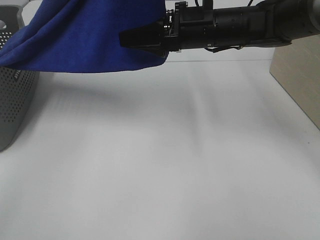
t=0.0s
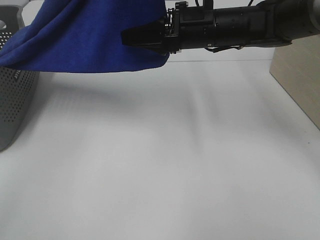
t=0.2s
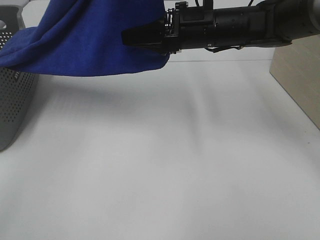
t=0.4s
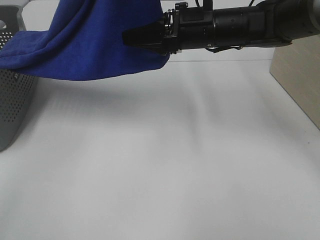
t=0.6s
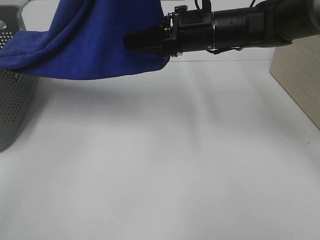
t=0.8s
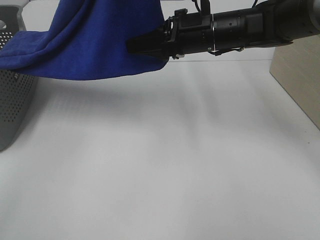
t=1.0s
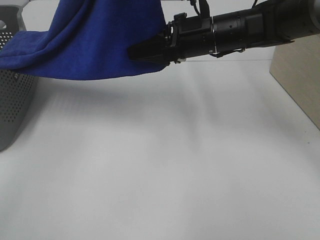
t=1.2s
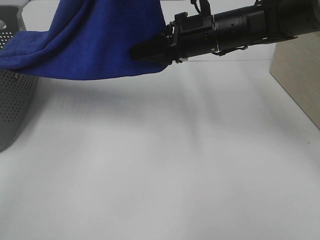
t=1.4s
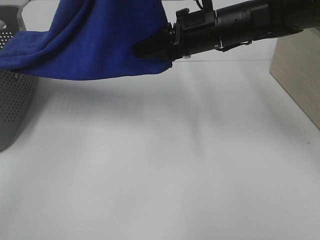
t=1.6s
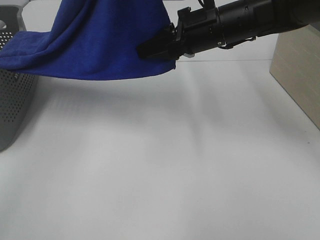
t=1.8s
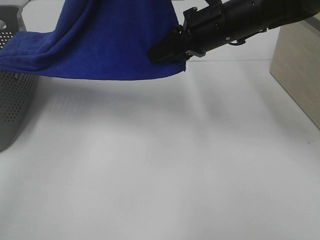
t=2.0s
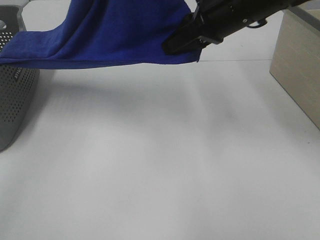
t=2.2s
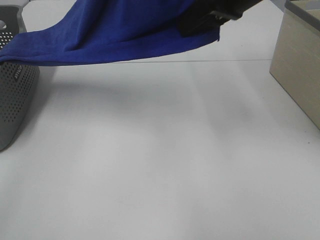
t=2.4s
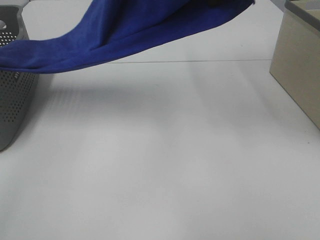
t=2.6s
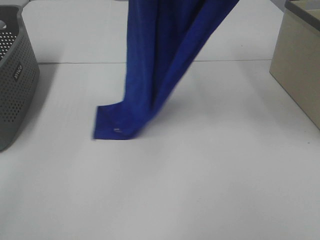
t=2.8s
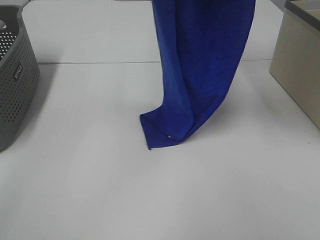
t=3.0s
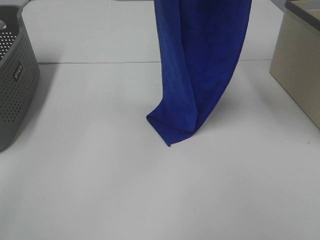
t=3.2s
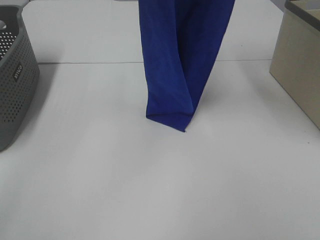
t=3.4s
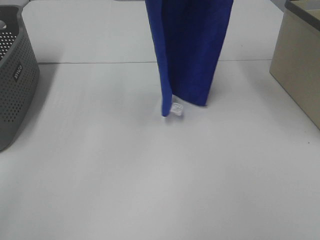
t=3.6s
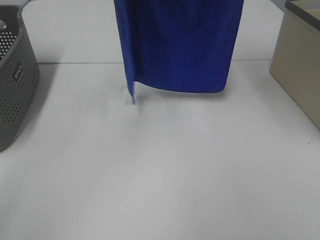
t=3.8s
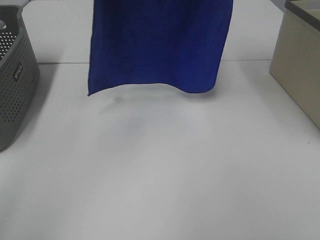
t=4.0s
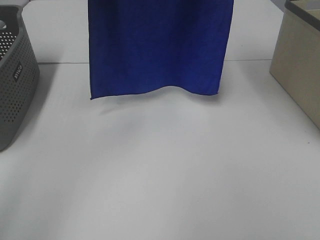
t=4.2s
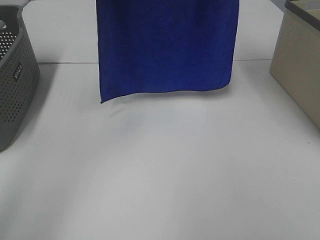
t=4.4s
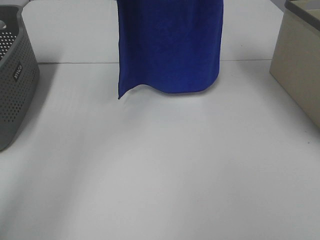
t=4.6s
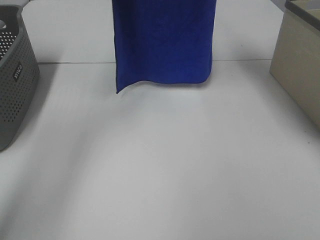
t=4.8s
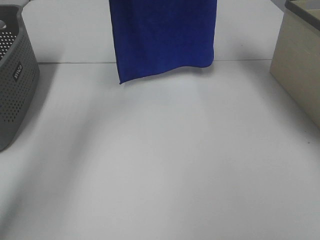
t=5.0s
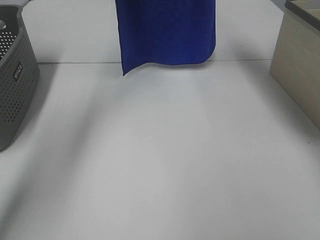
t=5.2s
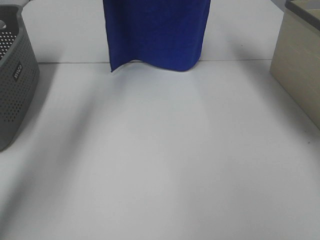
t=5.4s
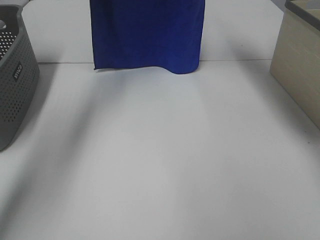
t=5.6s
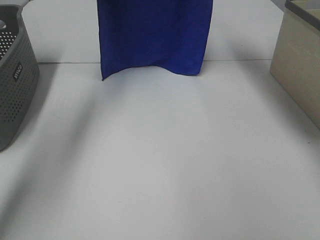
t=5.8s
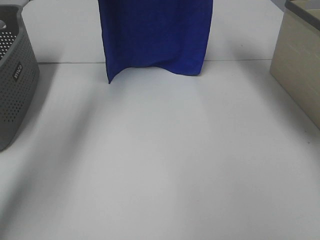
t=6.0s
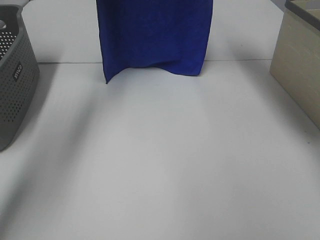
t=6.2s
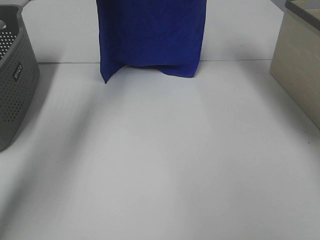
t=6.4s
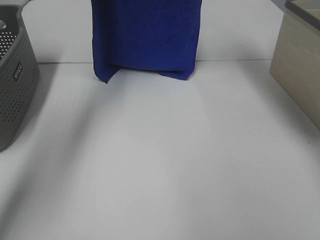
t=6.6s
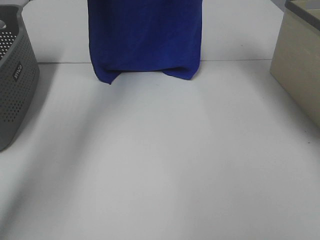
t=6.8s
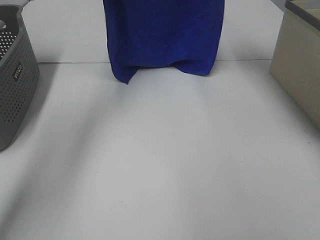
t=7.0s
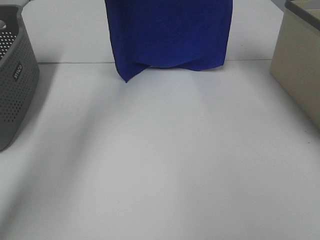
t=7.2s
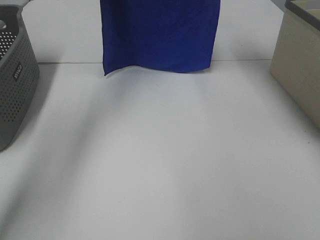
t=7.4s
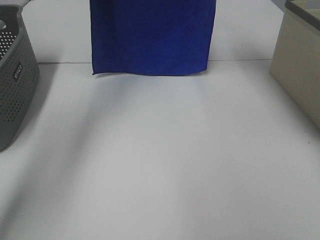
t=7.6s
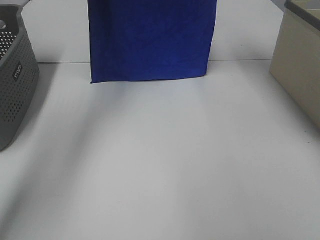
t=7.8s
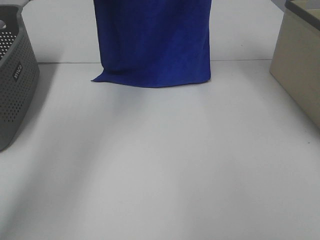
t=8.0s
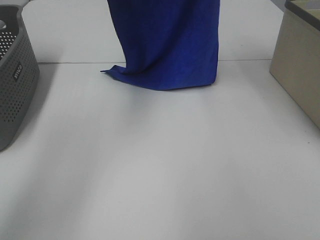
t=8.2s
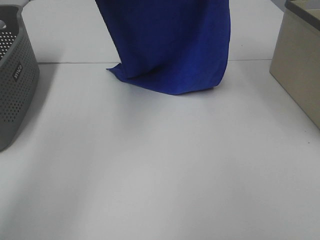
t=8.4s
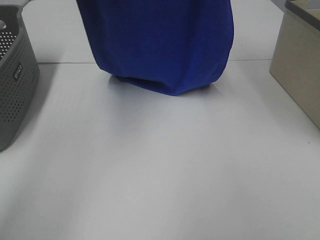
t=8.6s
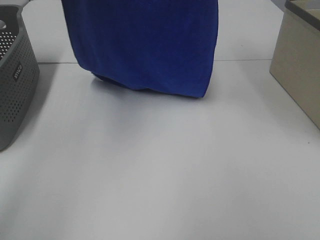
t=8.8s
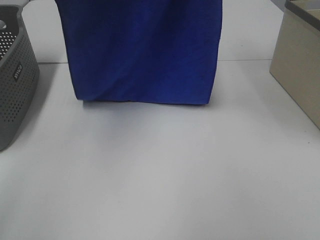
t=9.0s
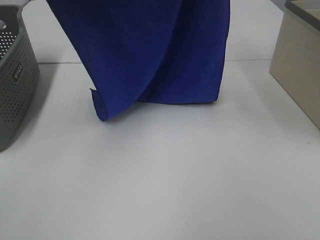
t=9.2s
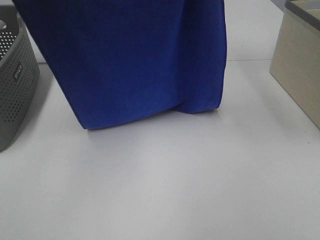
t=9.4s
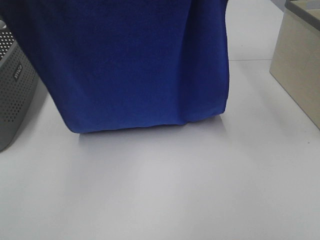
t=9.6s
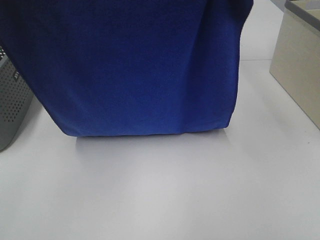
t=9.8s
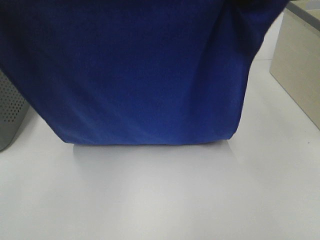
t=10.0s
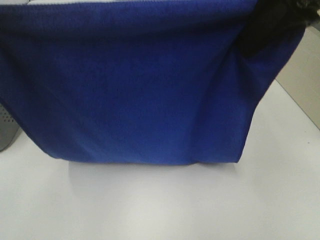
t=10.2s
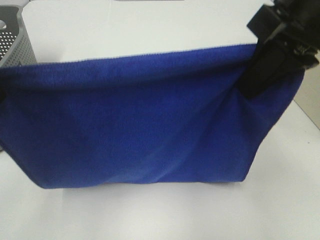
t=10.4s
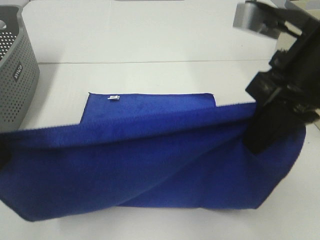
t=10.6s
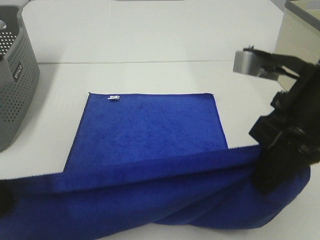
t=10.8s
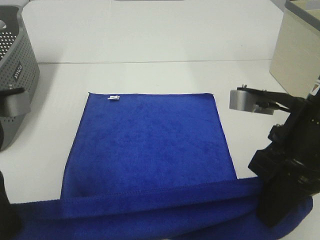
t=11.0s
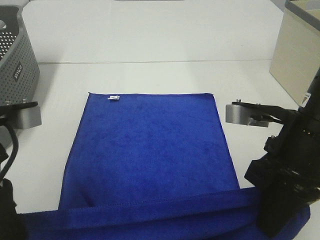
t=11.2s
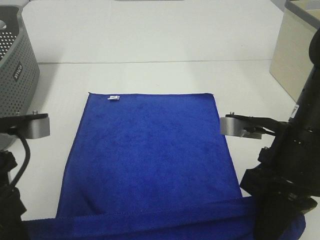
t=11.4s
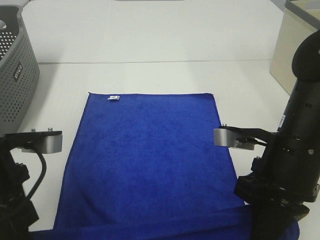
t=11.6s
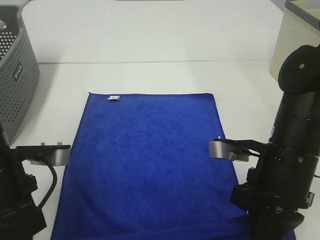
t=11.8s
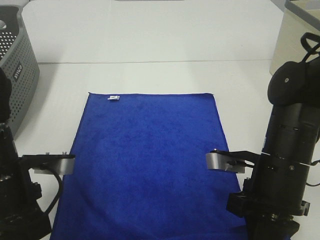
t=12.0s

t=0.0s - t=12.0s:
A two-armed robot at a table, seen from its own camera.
Task of the whole recording: Remove the towel and place it.
Step, t=1.4s - t=8.4s: Left hand: spread the blue towel flat on the table.
Step, t=1.4s - t=8.4s: Right hand: spread the blue towel flat on the table.
t=0.0s - t=1.6s: The right gripper closes.
t=1.6s - t=3.0s: The right gripper goes approximately 25 cm upward.
t=3.0s - t=4.4s: Both grippers move forward, some 5 cm.
t=4.4s - t=6.0s: Both grippers travel together forward and downward, some 10 cm.
t=6.0s - t=7.6s: There are only small adjustments of the grippers.
t=7.6s - t=9.0s: The grippers both shift backward by some 15 cm.
t=9.0s - t=10.4s: The two grippers go roughly 20 cm downward and backward.
t=10.4s - t=12.0s: The two grippers go some 20 cm downward.

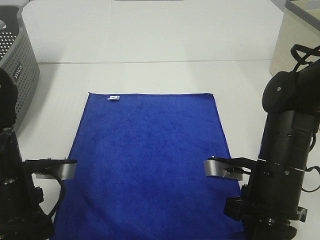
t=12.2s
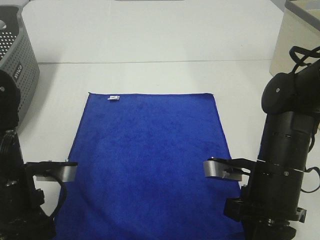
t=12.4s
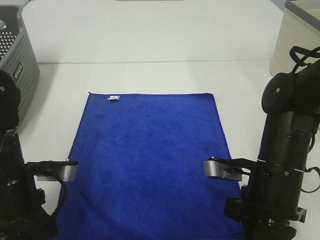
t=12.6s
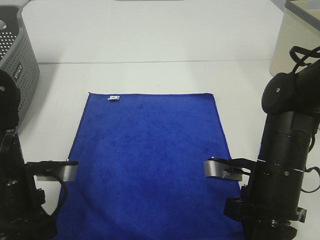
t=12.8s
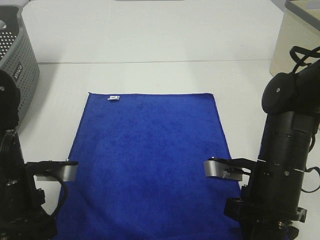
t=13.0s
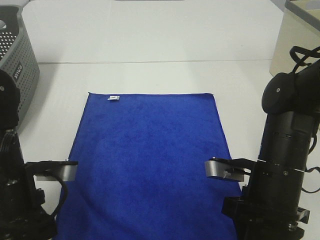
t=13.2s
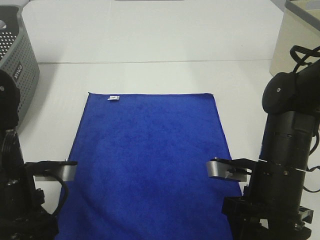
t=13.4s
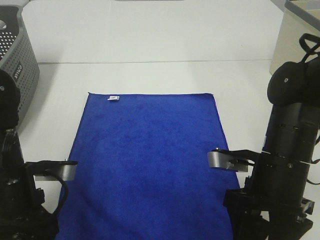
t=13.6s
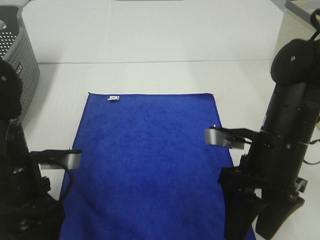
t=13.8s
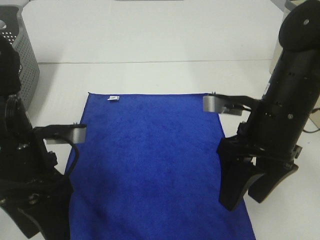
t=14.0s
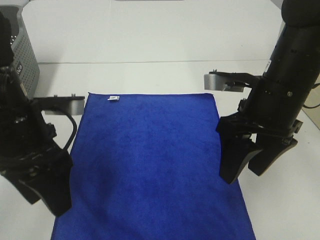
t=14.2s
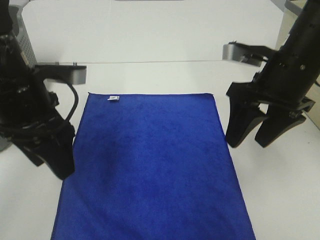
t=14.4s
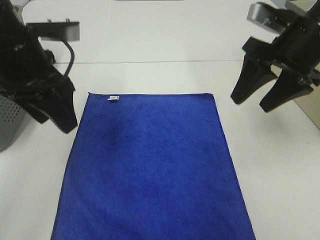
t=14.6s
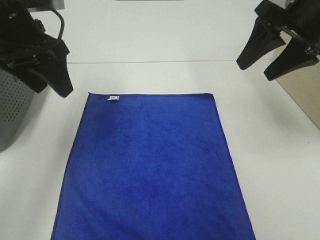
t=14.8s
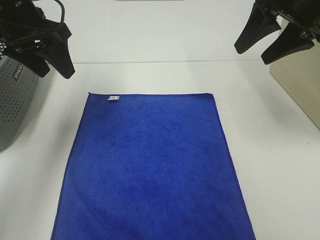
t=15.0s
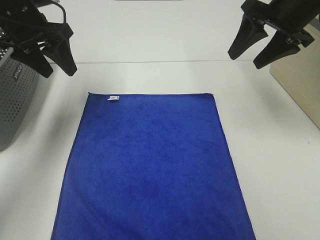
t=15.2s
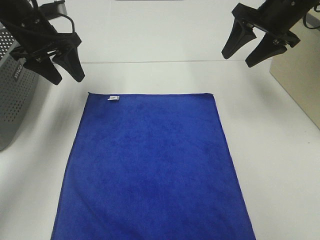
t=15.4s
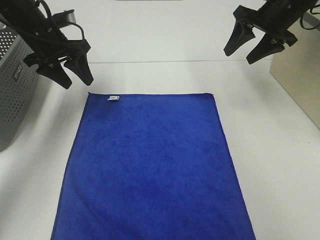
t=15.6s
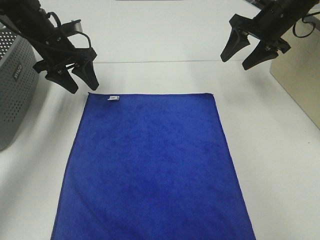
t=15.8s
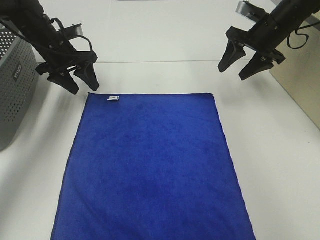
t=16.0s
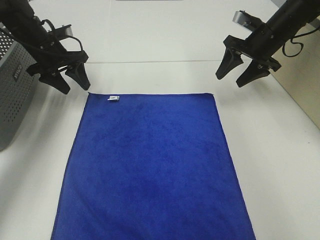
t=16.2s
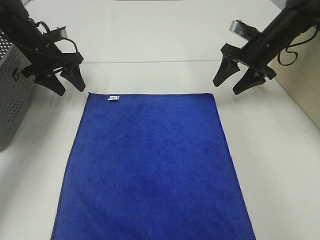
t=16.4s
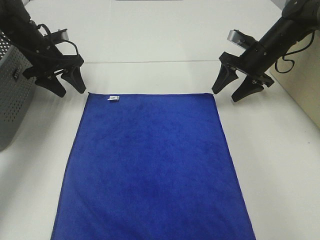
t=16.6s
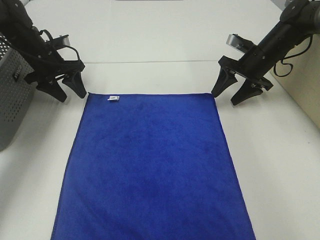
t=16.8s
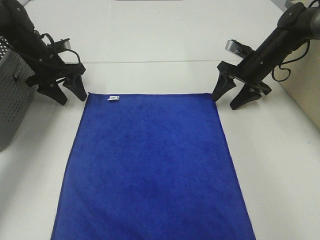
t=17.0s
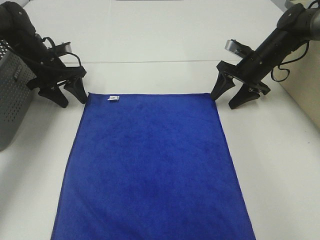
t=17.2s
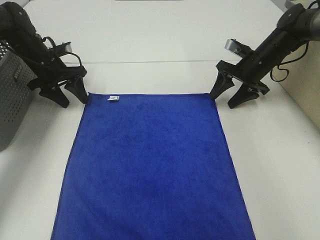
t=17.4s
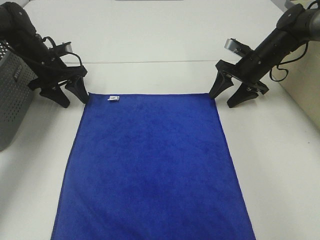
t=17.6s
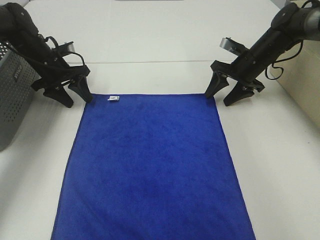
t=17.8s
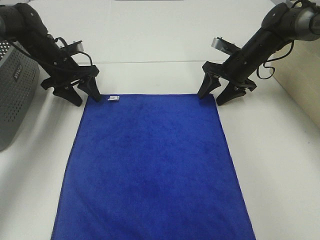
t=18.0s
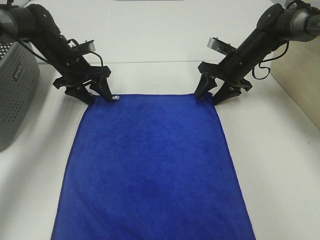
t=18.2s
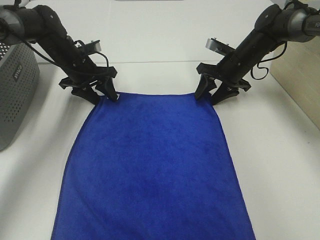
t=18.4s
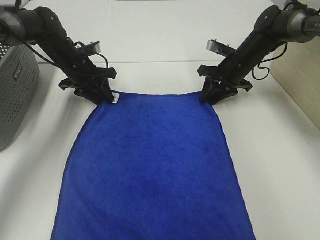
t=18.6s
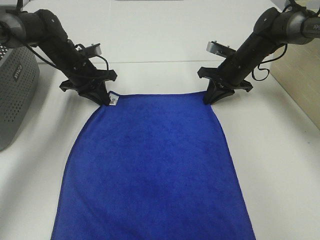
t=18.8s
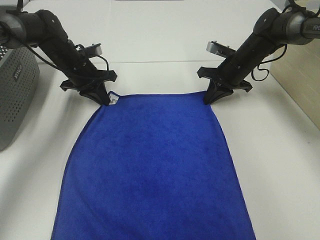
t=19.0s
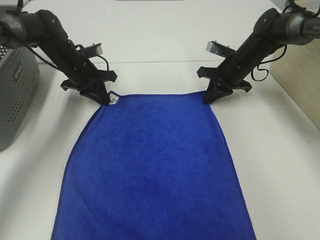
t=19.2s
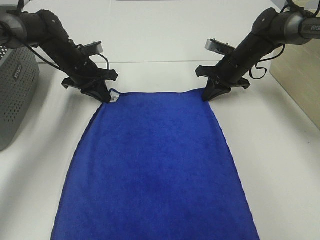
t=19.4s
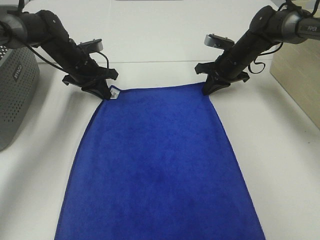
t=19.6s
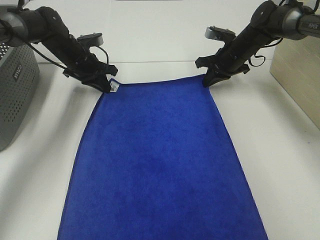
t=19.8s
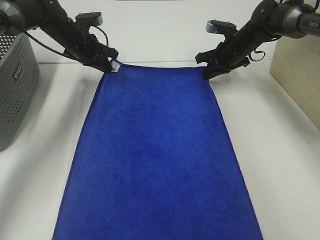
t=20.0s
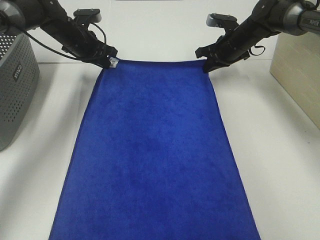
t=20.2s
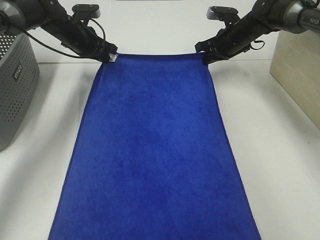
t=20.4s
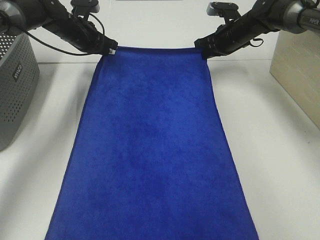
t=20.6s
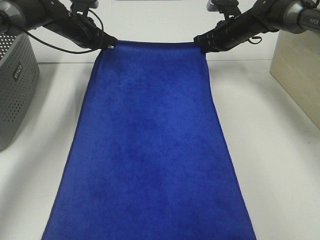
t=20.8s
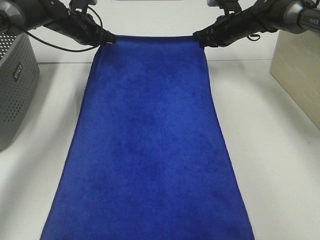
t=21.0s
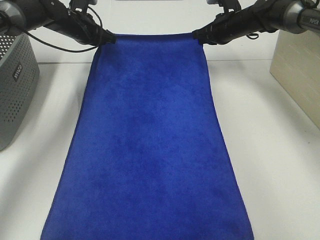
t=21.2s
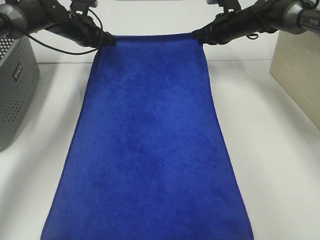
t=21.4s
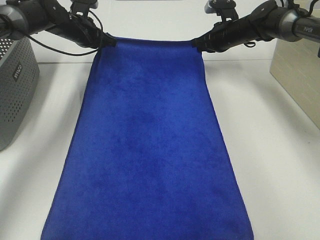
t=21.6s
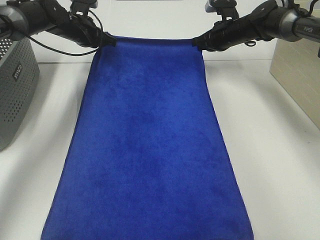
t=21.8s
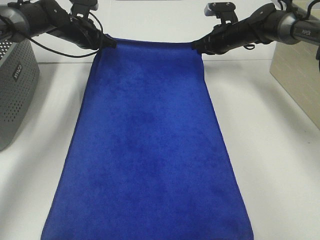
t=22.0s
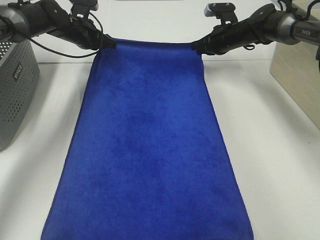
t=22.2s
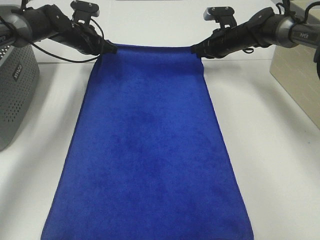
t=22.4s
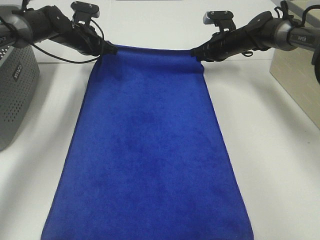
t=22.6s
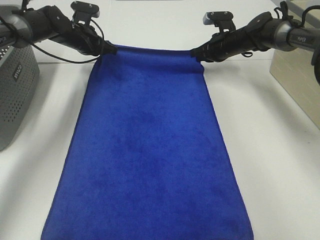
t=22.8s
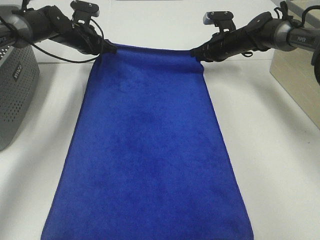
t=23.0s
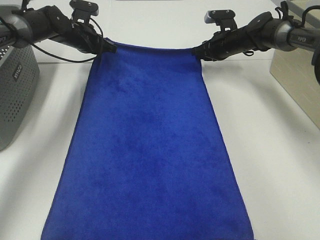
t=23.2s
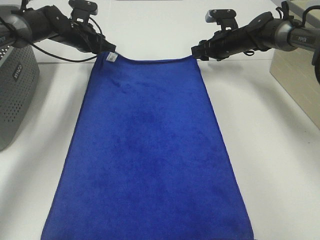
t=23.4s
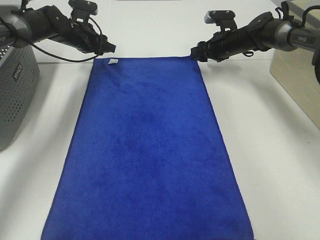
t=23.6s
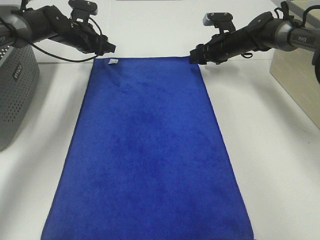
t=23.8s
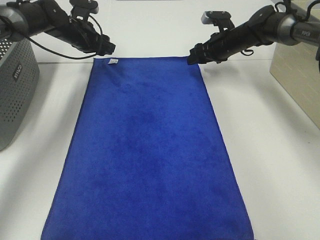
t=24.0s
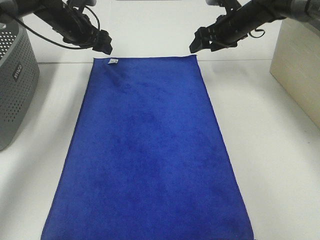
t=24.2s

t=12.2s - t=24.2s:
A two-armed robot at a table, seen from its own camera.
Task of the whole recording: Remove the towel and place it.
Step, t=12.2s - t=16.4s: Left hand:adjust the blue towel.
Step, t=12.2s - t=16.4s: Right hand:adjust the blue towel.
t=12.2s - t=13.8s: The left gripper opens. The right gripper opens its fingers.
t=13.8s - t=15.2s: The right gripper goes about 25 cm forward, upward and to the right. The left gripper heads forward and upward, covering roughly 25 cm.
t=15.2s - t=16.6s: The grippers both shift downward and forward by some 15 cm.
t=16.6s - t=18.2s: The left gripper shifts roughly 5 cm to the right. The right gripper moves approximately 5 cm.
t=18.2s - t=19.8s: The left gripper closes its fingers. Meanwhile the right gripper closes its fingers.
t=19.8s - t=21.2s: The left gripper moves some 5 cm, while the right gripper ends up about 5 cm from where it was.
t=21.2s - t=22.6s: The grippers make only small movements.
t=22.6s - t=24.2s: Both grippers move upward, some 5 cm. The right gripper opens its fingers. The left gripper opens up.
